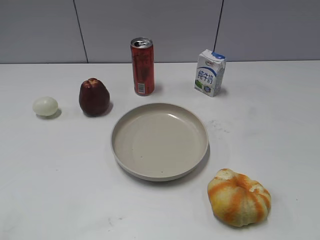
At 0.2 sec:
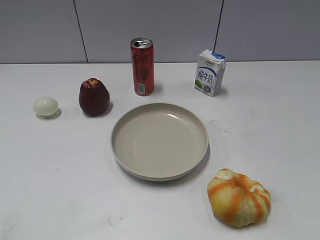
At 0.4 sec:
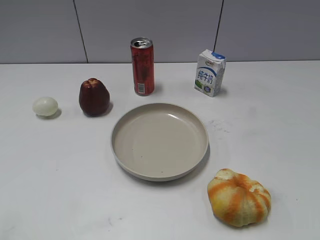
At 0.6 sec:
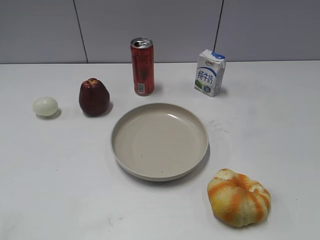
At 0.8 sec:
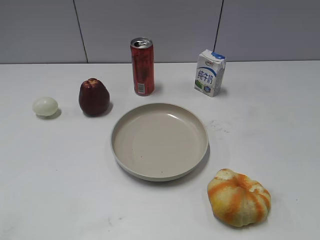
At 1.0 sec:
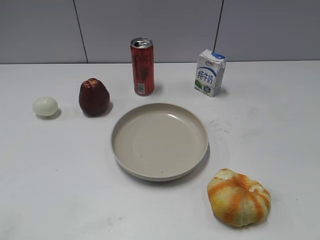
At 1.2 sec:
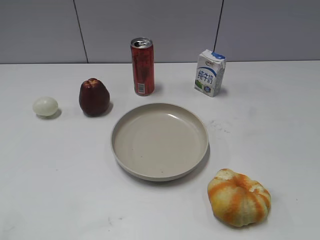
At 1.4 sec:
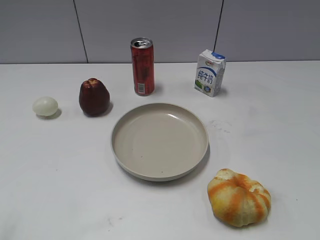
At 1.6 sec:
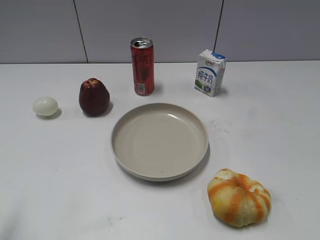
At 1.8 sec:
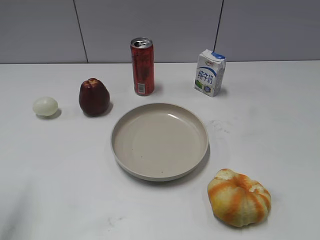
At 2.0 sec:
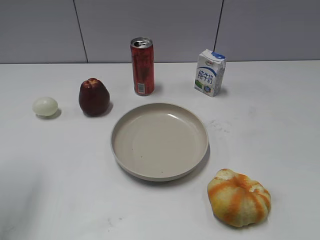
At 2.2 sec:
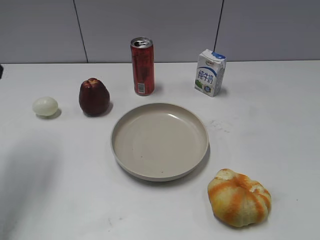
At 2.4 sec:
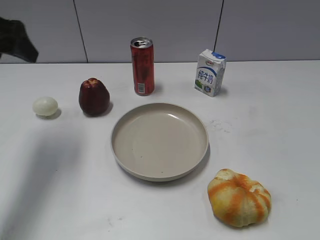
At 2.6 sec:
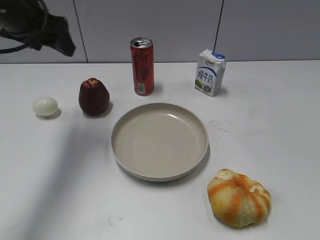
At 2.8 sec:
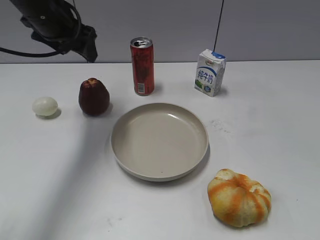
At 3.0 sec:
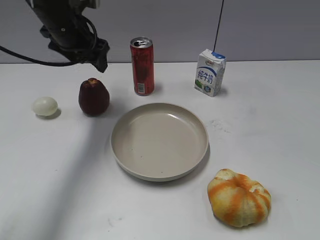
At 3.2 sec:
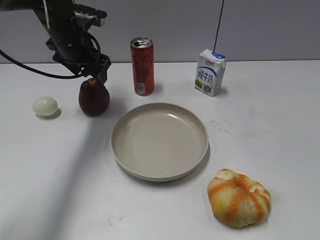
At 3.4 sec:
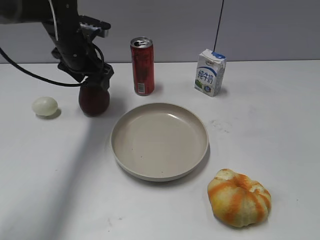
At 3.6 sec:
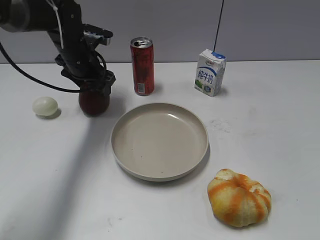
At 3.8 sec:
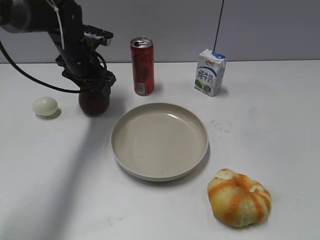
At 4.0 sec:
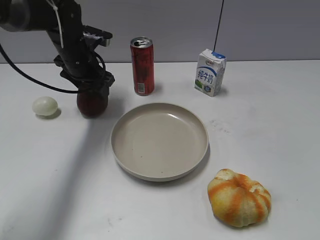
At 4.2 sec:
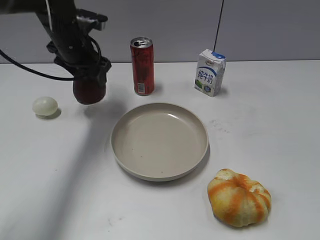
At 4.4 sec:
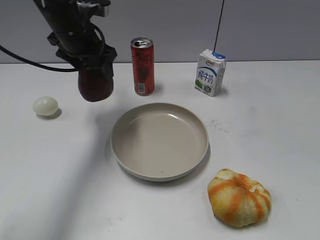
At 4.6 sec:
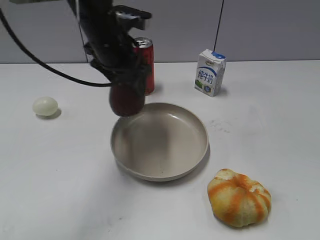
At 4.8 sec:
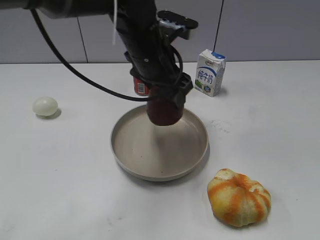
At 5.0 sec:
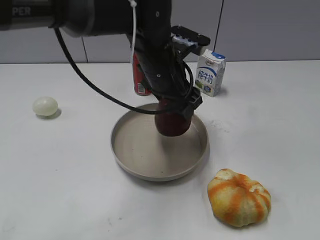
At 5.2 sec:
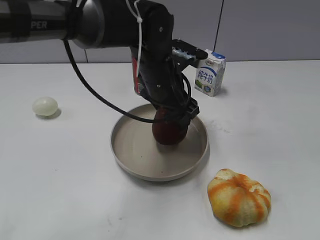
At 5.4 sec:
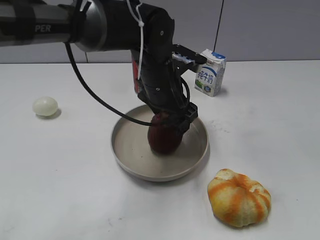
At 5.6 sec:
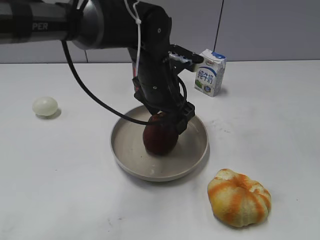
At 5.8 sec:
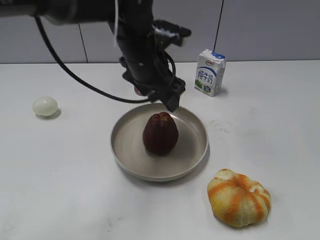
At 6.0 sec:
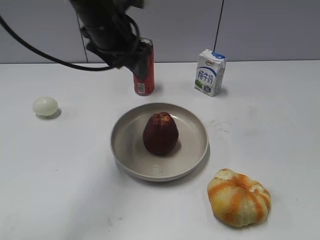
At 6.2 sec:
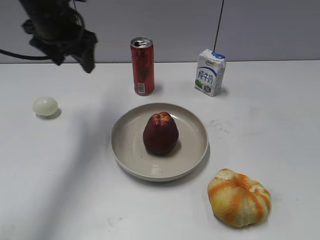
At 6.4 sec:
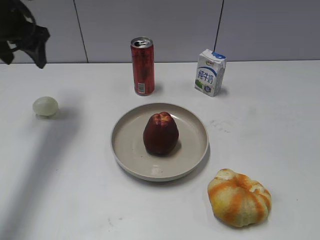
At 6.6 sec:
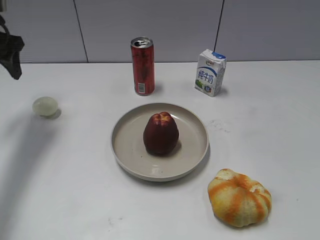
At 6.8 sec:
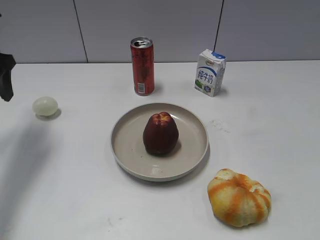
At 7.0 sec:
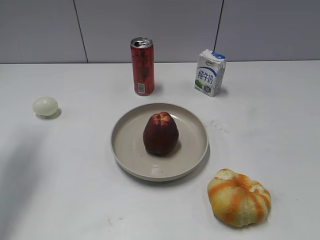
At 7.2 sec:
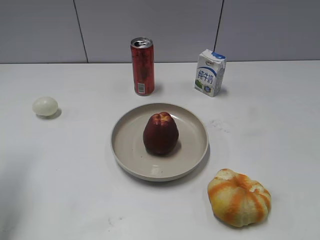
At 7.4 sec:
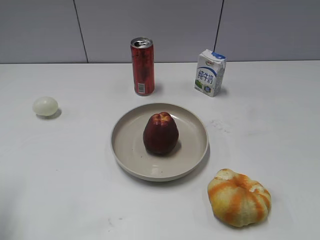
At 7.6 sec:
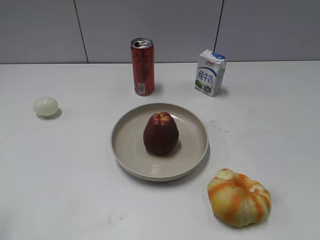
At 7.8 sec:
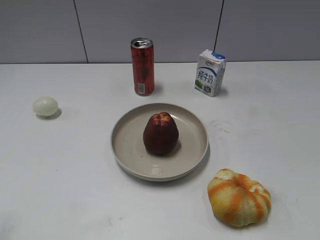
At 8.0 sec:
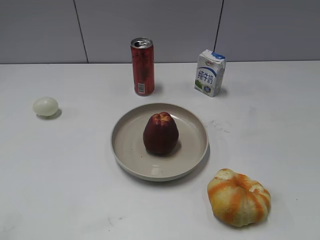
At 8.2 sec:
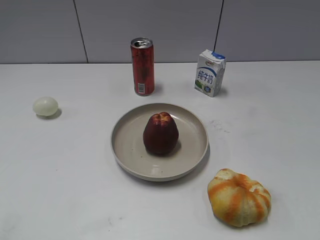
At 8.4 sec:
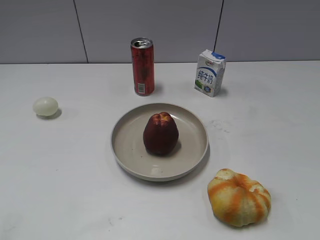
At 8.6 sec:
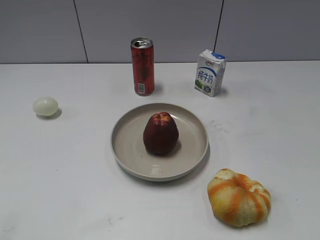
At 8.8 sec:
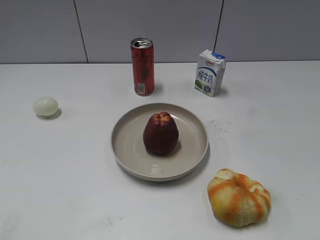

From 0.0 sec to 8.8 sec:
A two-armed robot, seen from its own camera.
Step, from 2.2 sec to 3.8 sec: Grasp the apple with left gripper.
Step, from 4.2 sec to 5.6 sec: Place the apple on the plate with left gripper.
From 1.4 sec to 3.0 sec: The left gripper is displaced forward and to the right by roughly 40 cm.
From 3.0 sec to 4.4 sec: The left gripper reaches approximately 5 cm downward, then returns, and closes.
From 4.4 sec to 5.8 sec: The left gripper travels to the right and backward by about 10 cm, and opens.
From 5.8 sec to 7.4 sec: The left gripper is displaced to the left and backward by some 35 cm, and closes.
